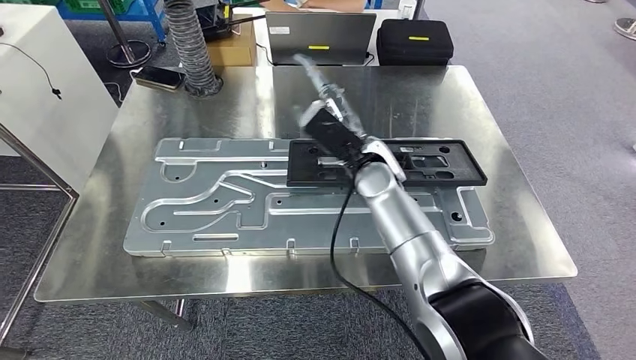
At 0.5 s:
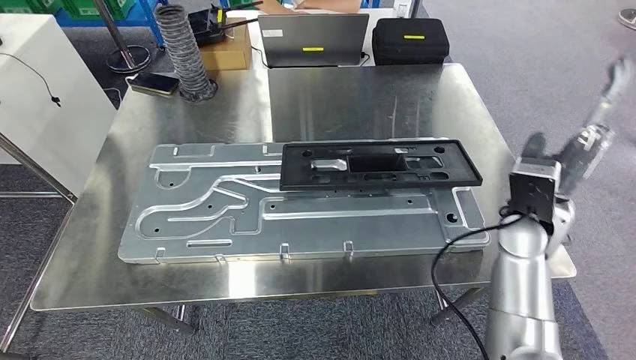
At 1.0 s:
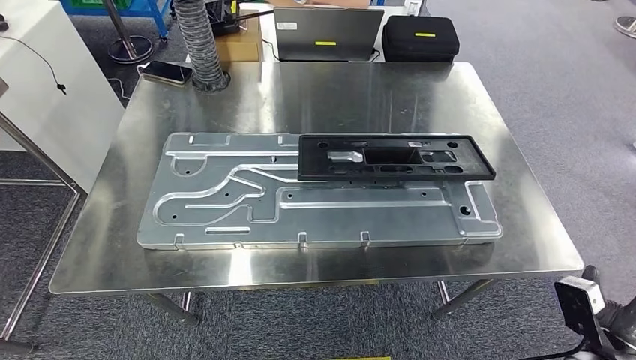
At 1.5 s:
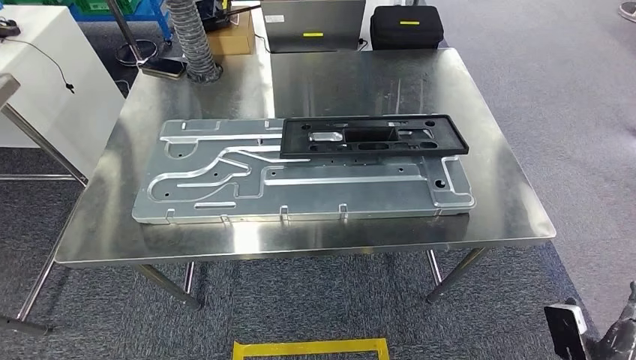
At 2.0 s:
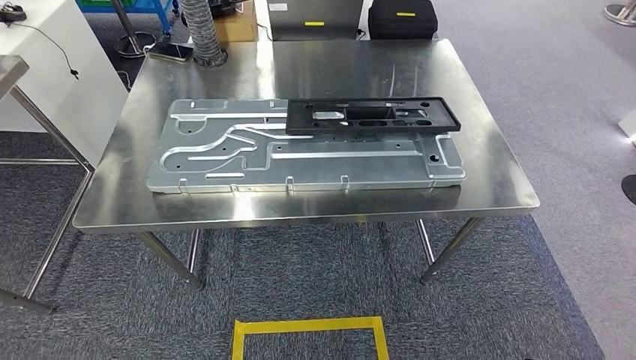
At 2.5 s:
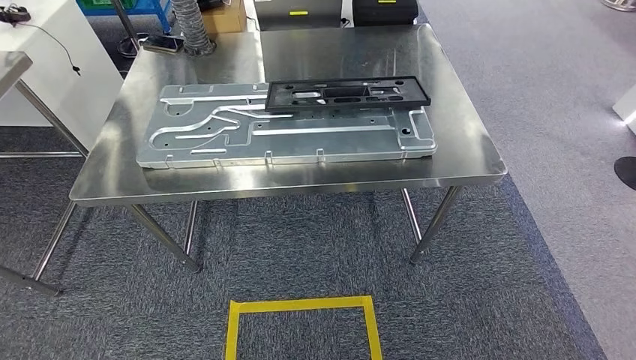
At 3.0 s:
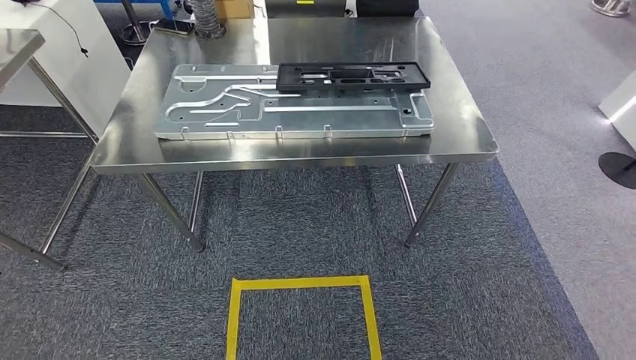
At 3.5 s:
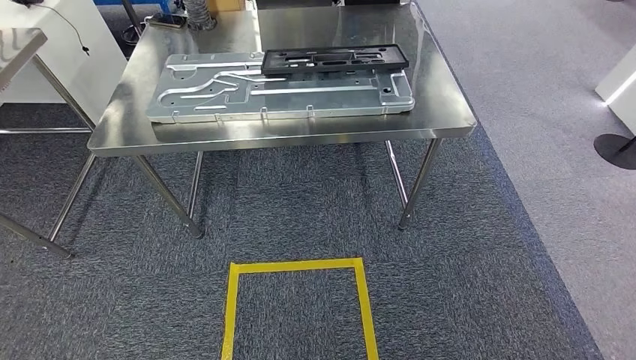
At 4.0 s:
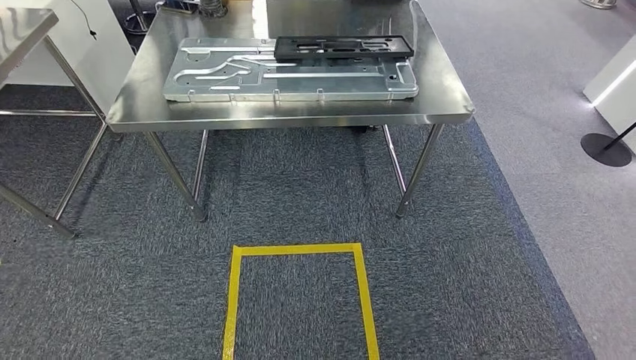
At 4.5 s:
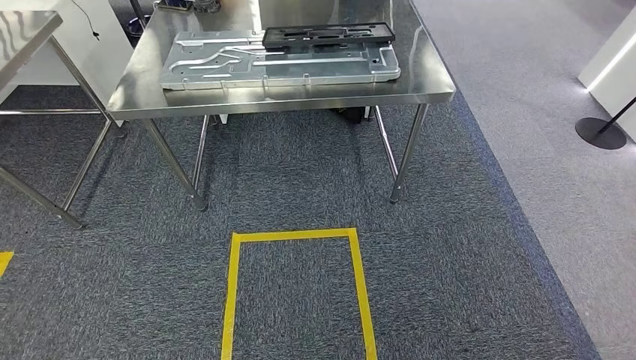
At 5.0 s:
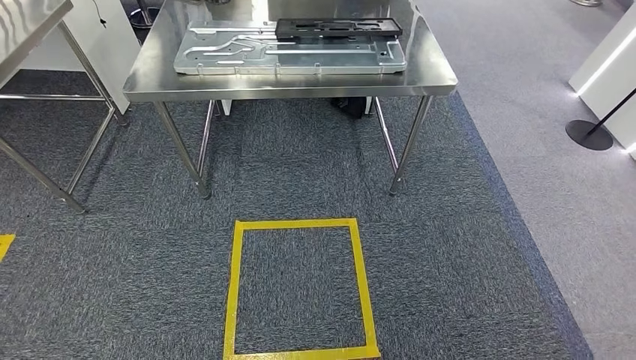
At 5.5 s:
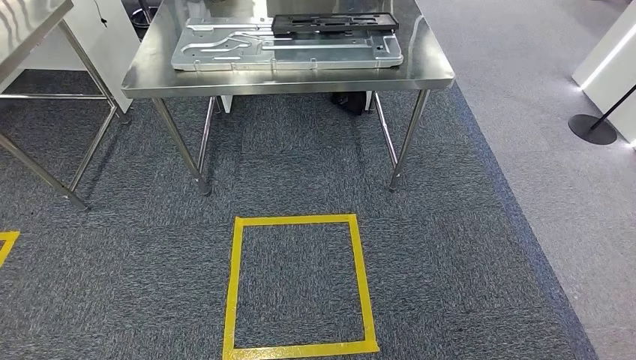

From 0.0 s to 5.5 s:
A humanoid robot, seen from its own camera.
Step, from 1.5 s to 5.5 s: Move to the initial position of the shelf.
